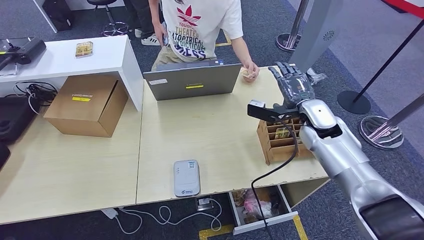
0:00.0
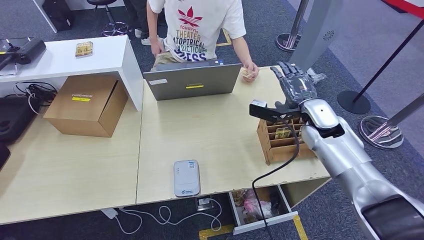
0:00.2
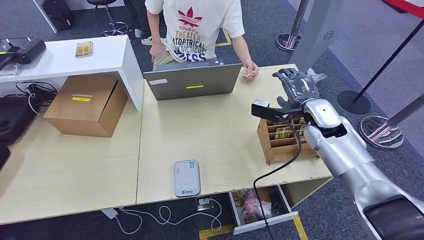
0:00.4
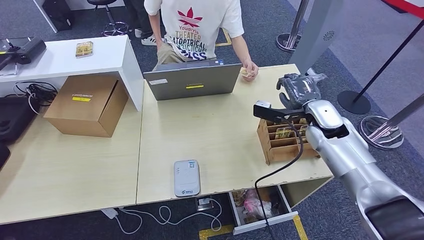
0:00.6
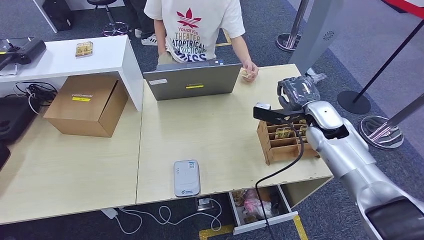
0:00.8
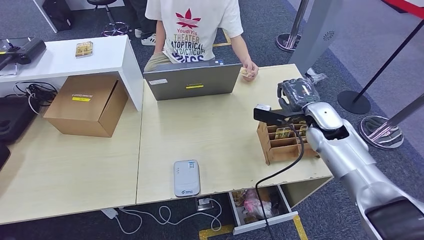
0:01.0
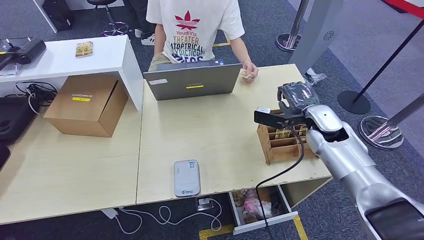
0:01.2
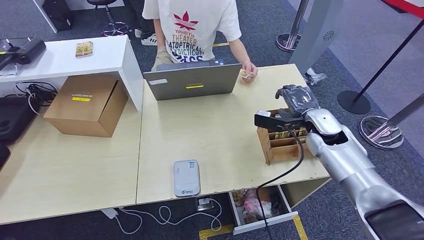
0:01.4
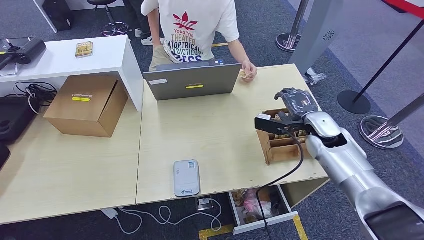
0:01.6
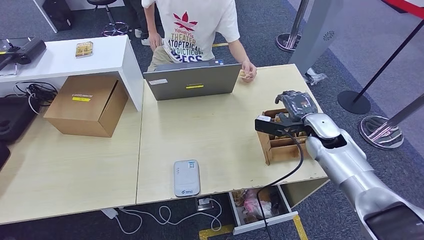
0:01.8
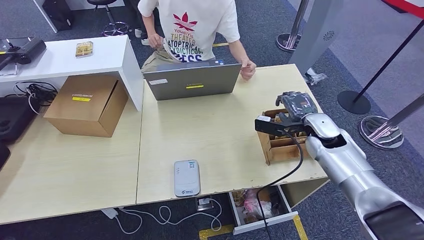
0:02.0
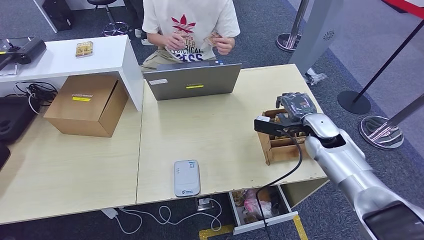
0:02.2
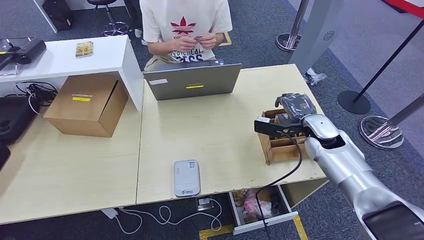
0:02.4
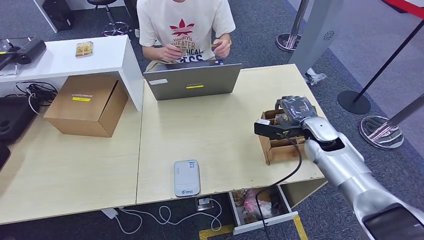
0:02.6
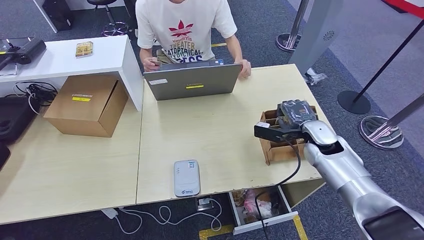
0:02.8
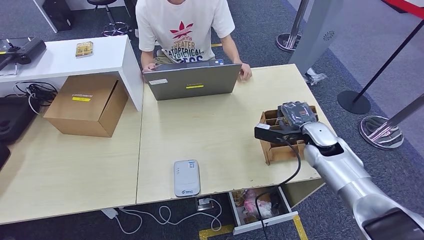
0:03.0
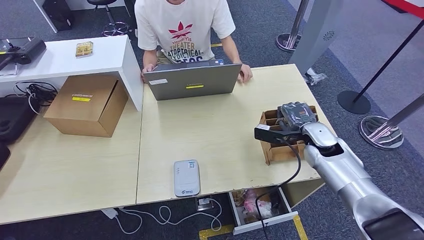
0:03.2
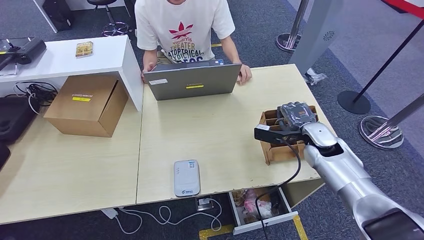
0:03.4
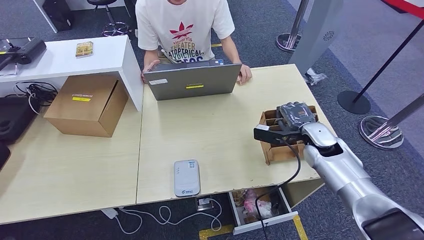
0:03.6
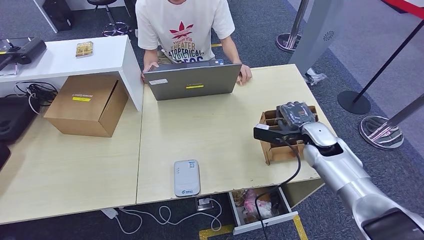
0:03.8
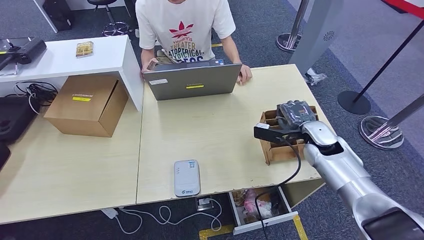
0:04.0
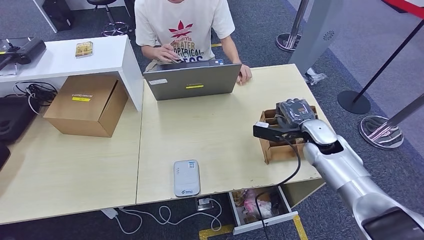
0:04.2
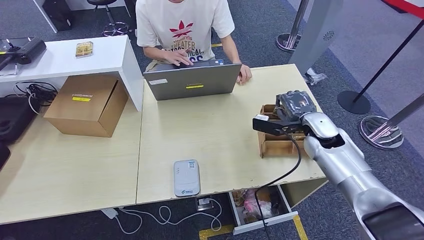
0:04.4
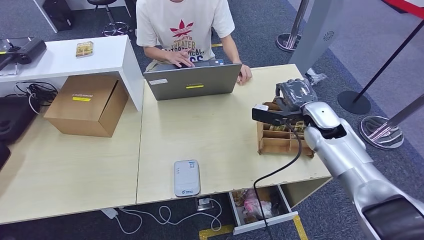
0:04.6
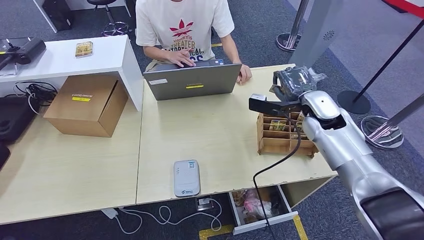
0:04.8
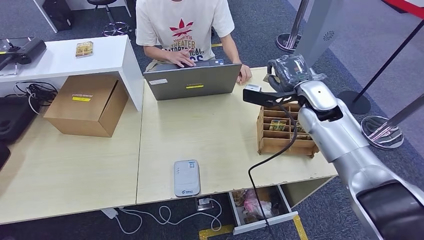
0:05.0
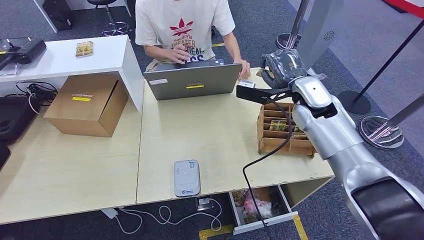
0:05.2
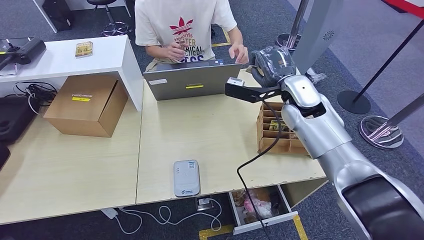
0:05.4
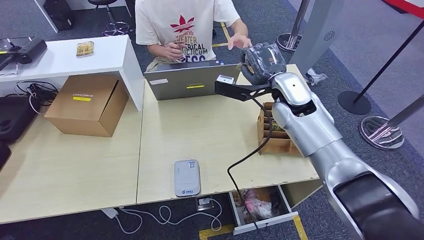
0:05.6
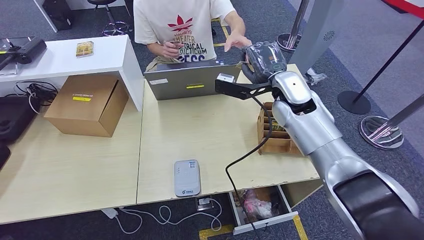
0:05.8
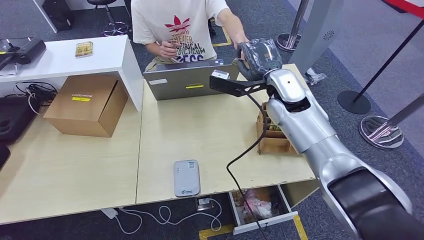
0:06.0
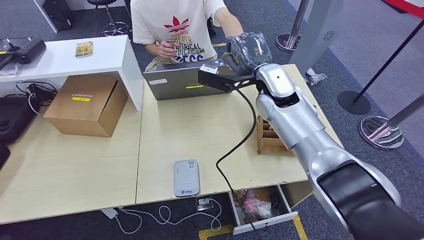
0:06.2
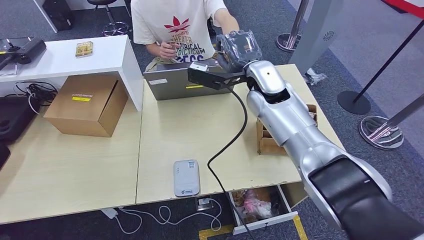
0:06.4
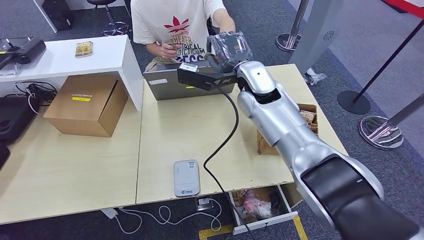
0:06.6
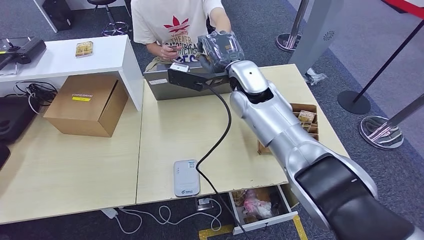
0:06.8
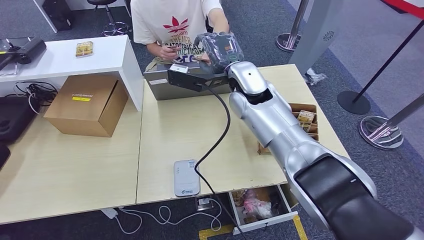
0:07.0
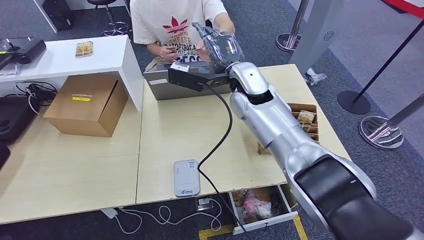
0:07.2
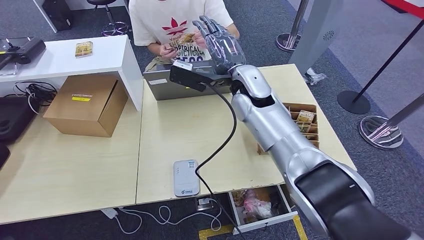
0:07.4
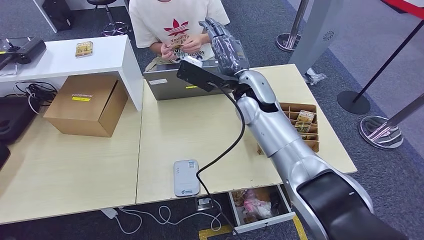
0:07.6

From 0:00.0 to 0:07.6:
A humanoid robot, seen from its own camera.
Step, from 0:00.0 to 0:04.6: Pick up the room key from the key card box.
Step, from 0:04.8 to 0:07.6: Hand the room key to the person.
From 0:00.0 to 0:01.6: There are only small adjustments of the hands.
From 0:01.6 to 0:03.0: The hands stay close to where they were, moving slightly.
From 0:03.0 to 0:04.6: The right hand travels upward by about 5 cm.
From 0:04.6 to 0:06.0: The right hand shifts about 15 cm to the left and upward.
From 0:06.0 to 0:07.6: The right hand moves to the left, roughly 10 cm.
